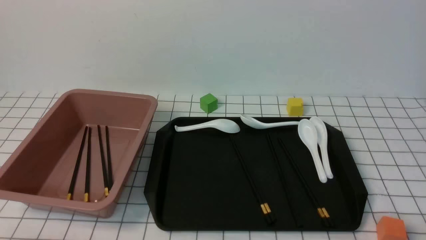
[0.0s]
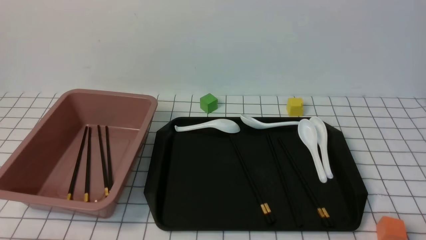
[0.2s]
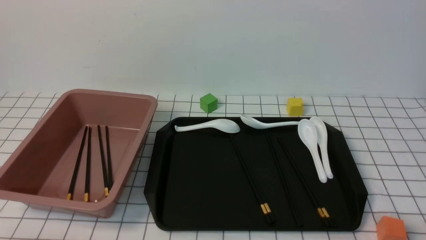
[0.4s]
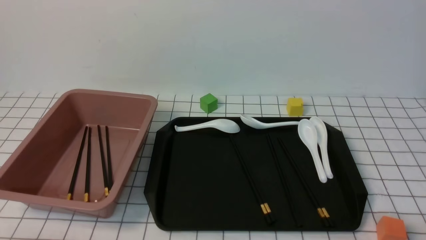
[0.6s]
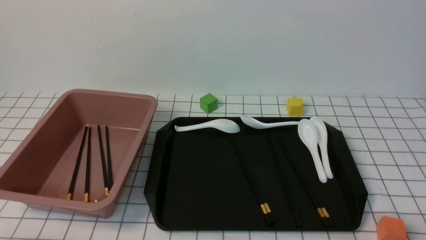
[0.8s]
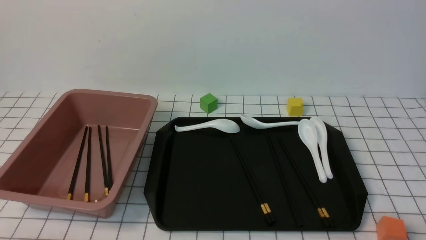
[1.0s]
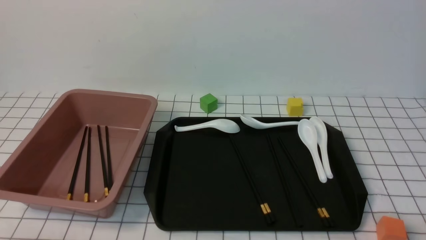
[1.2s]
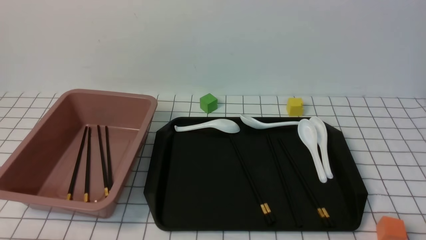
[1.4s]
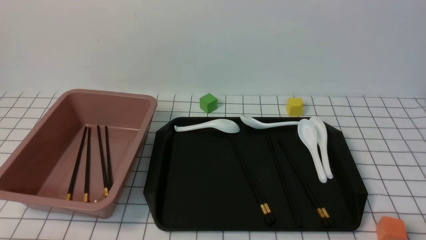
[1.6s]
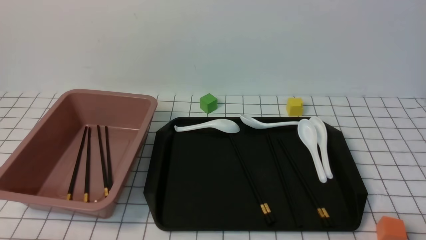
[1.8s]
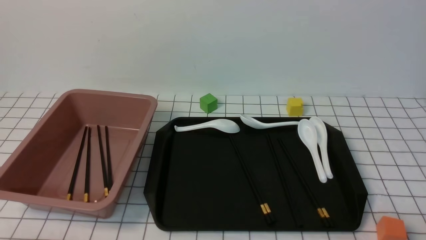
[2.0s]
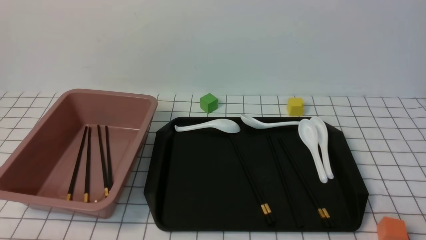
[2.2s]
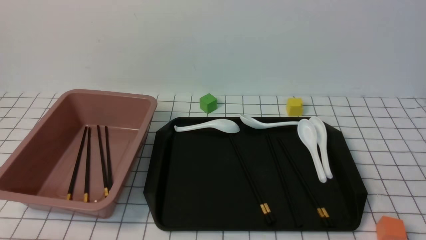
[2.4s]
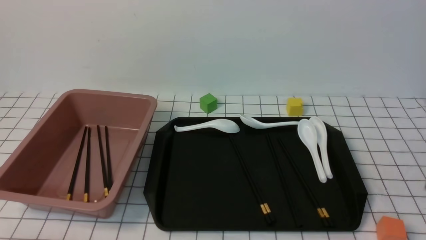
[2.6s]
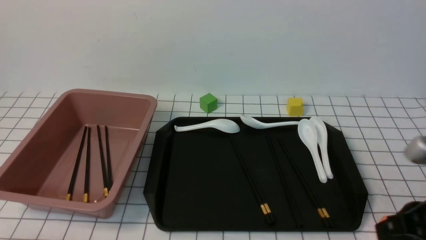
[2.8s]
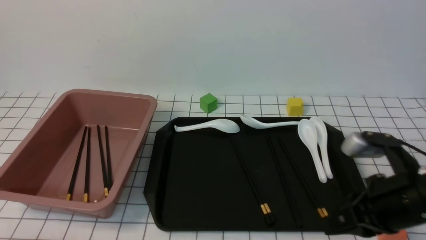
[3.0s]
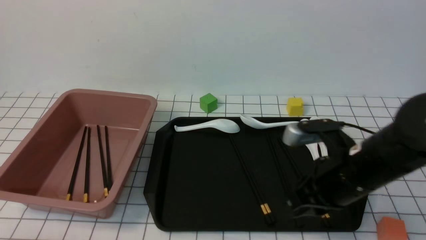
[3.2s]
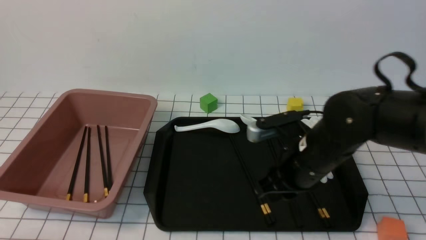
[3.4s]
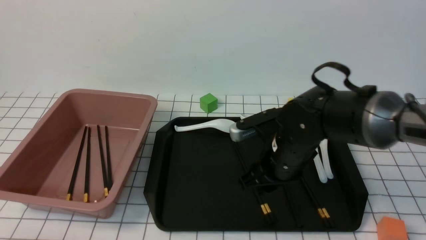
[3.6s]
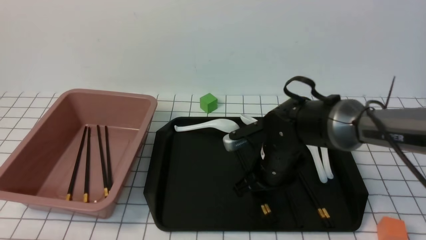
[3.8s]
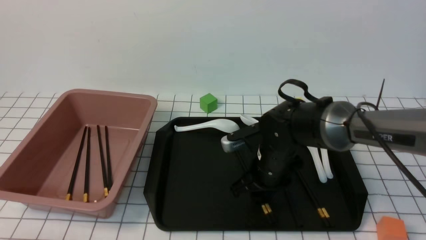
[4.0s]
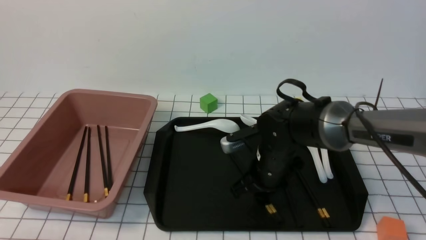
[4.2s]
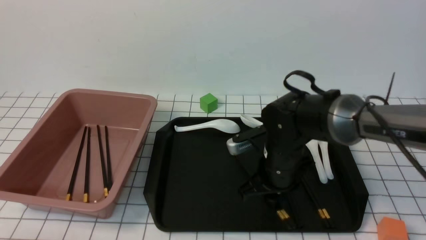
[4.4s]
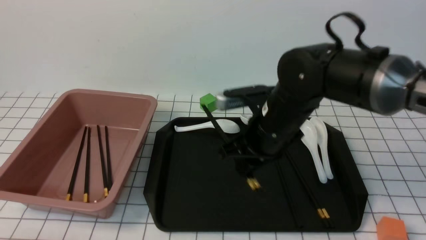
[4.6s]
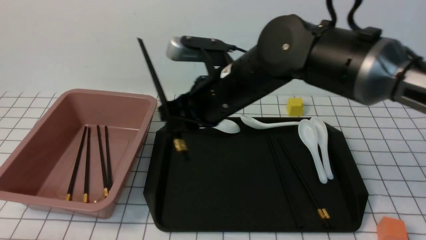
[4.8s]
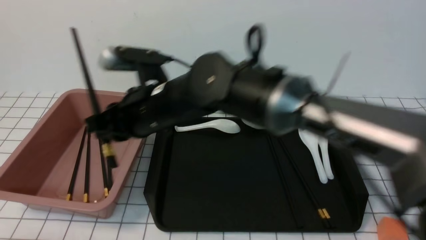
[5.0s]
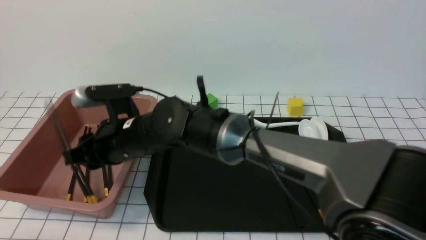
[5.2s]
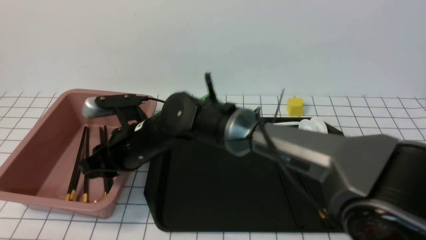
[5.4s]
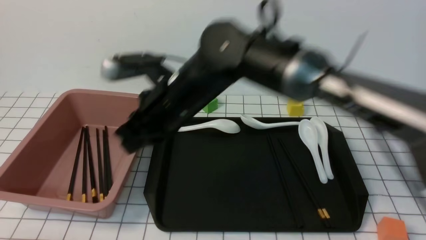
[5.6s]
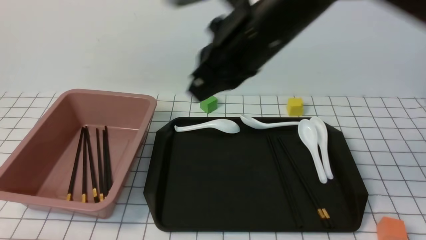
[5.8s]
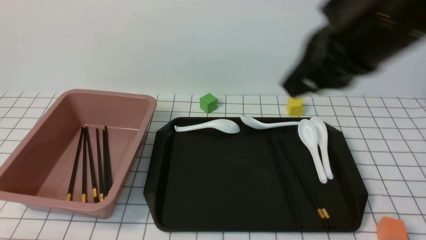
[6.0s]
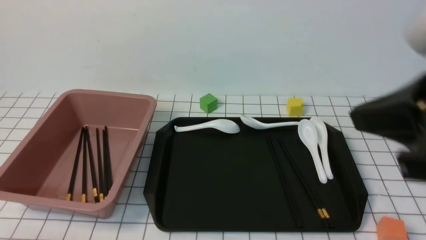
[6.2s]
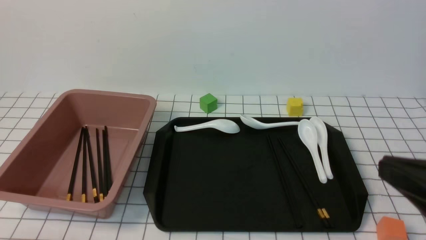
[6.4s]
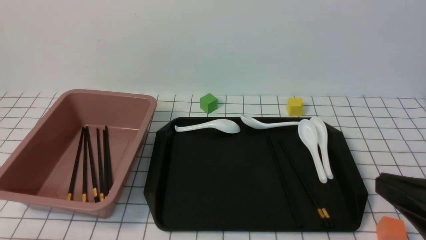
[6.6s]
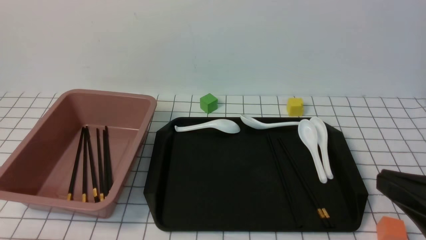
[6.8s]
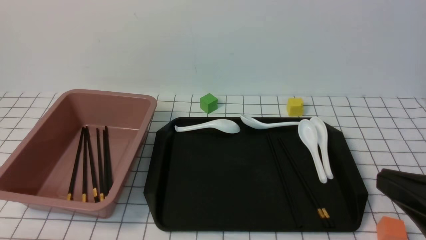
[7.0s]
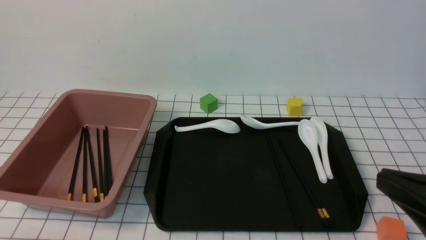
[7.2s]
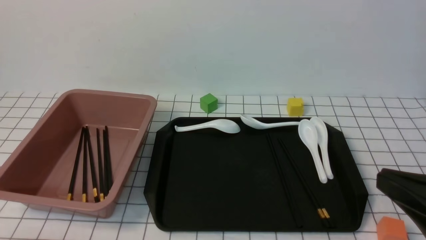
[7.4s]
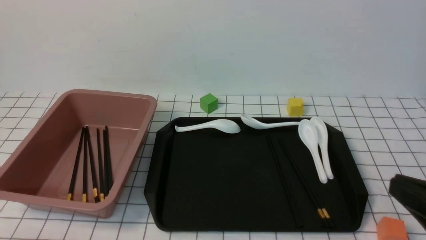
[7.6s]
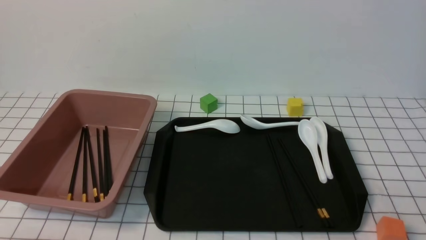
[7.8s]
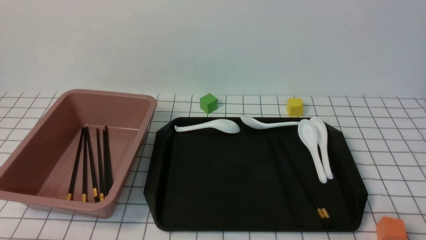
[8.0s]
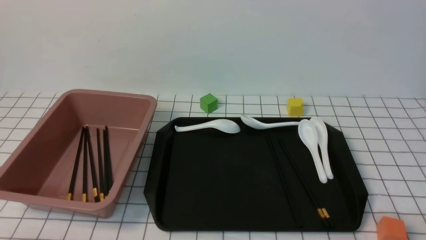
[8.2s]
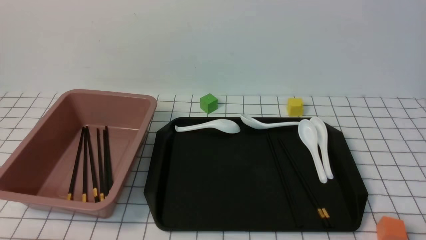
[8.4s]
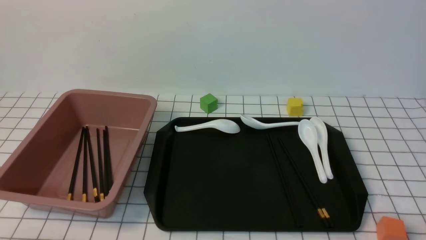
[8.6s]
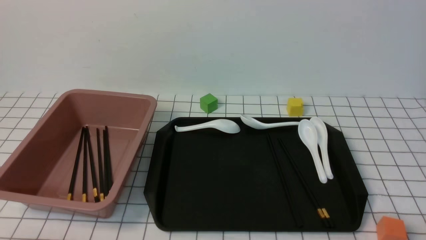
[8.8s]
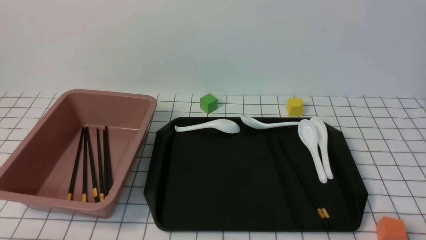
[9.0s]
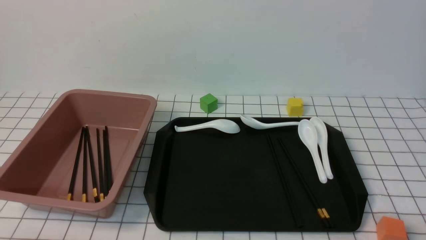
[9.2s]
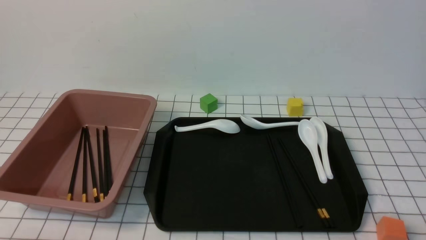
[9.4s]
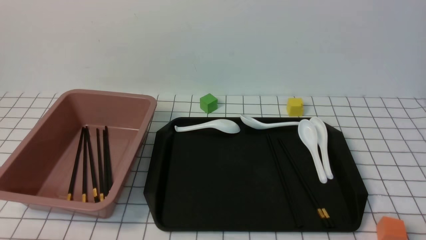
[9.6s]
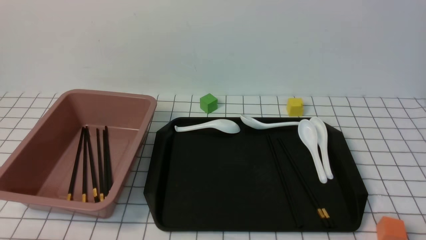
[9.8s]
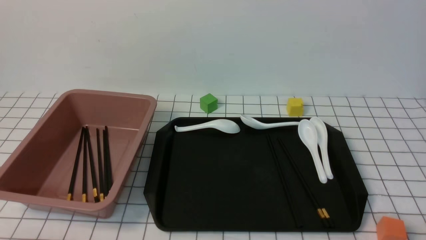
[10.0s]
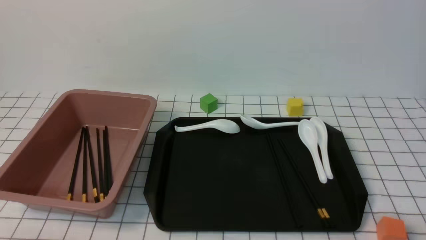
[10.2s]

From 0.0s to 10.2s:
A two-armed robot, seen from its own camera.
Step, from 0.0s to 4.4s: use the right arm to grab a pair of chopsticks.
Step, from 4.6s to 5.6s: use the right arm to put the chopsticks into the lunch box.
From 0.0s to 1.4s: The two grippers keep their place.
From 1.4s to 3.0s: The right gripper goes approximately 20 cm forward, to the left and upward, and closes its fingers.
From 3.0s to 4.4s: The right gripper shifts approximately 20 cm to the left, forward and downward, and opens and closes again.
From 4.4s to 5.8s: The right gripper goes up and down, some 20 cm each way, reversing 2 times, and closes up.
From 5.8s to 7.2s: The right gripper is displaced to the right, backward and downward by some 25 cm.
From 7.2s to 8.8s: The right gripper is displaced downward and to the right by approximately 15 cm.
From 8.8s to 10.2s: Both grippers stay put.

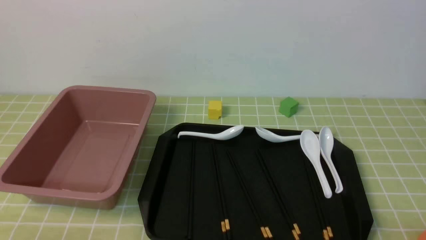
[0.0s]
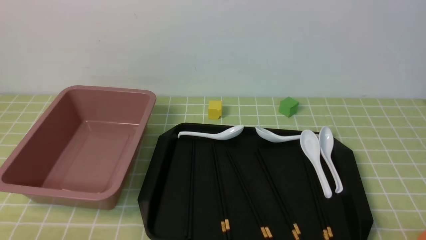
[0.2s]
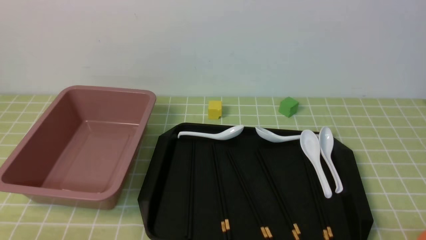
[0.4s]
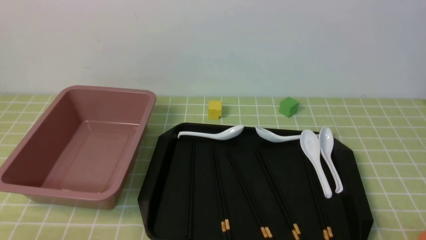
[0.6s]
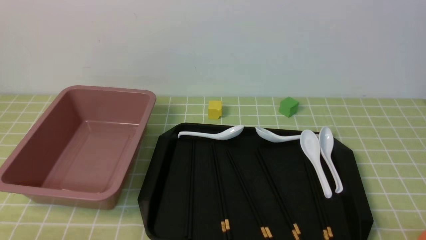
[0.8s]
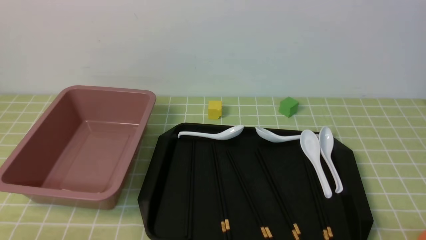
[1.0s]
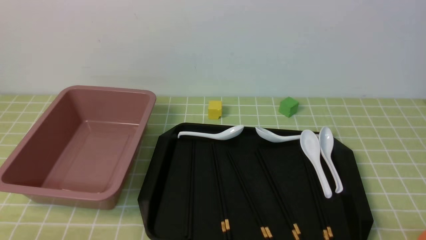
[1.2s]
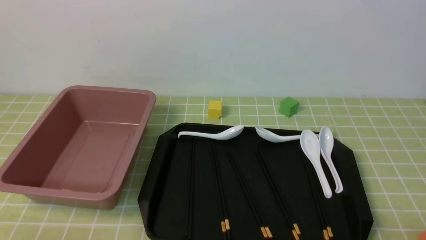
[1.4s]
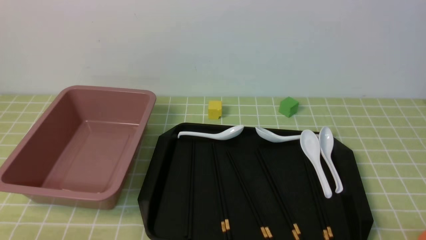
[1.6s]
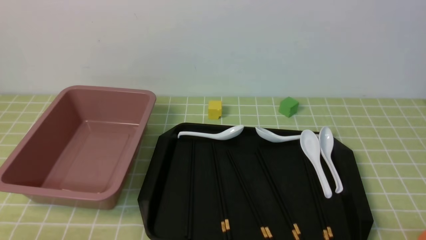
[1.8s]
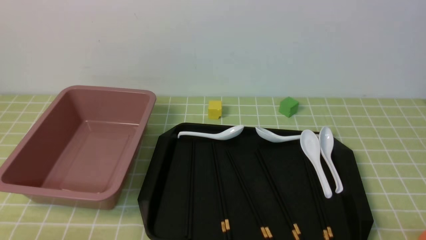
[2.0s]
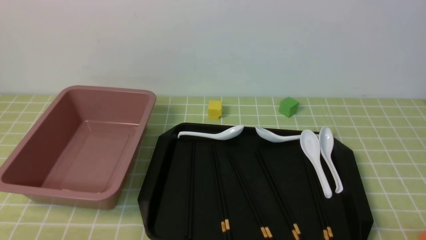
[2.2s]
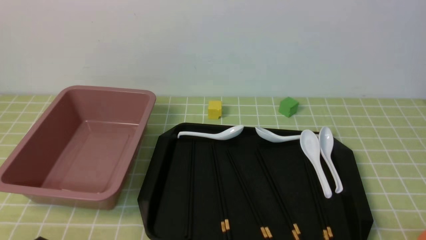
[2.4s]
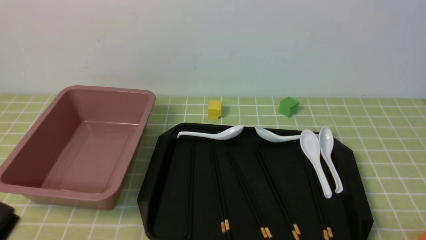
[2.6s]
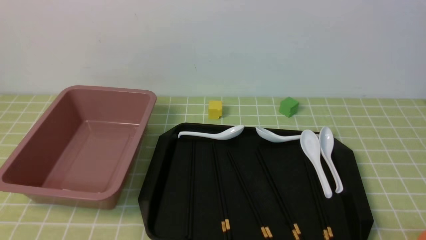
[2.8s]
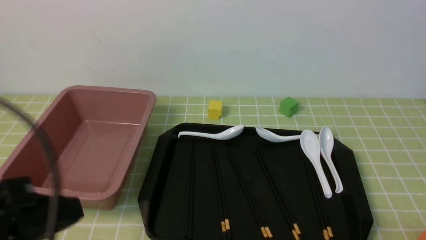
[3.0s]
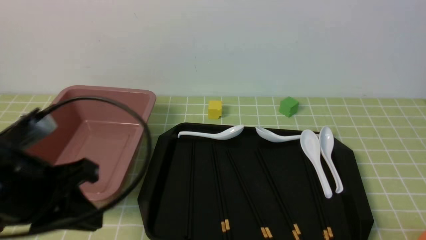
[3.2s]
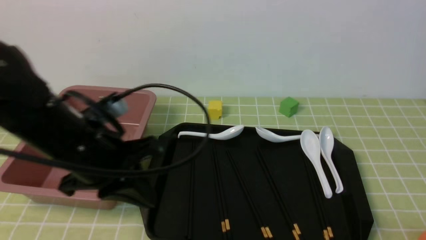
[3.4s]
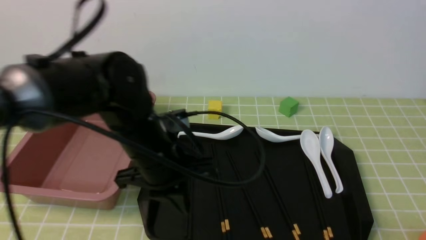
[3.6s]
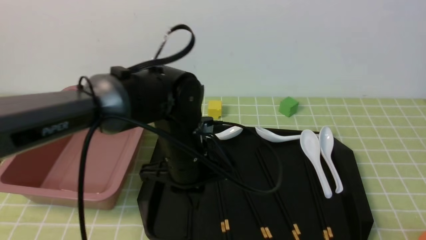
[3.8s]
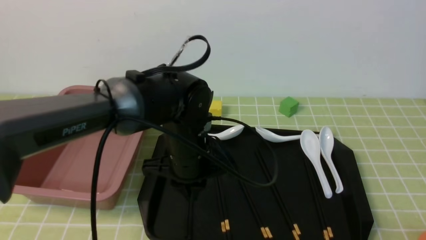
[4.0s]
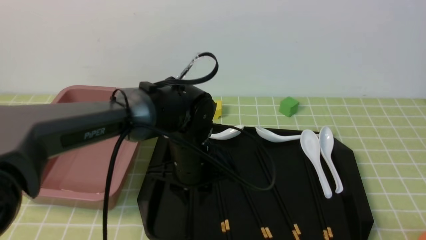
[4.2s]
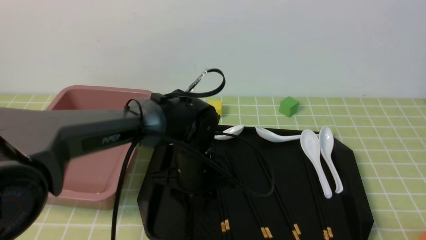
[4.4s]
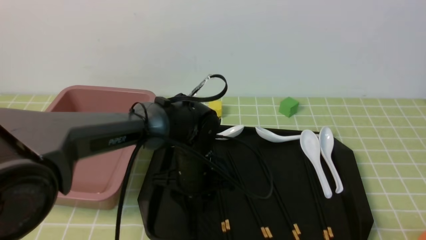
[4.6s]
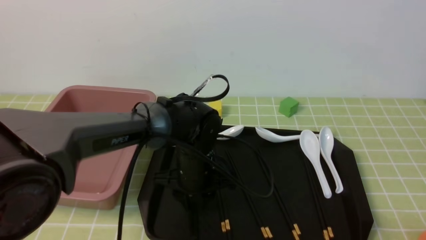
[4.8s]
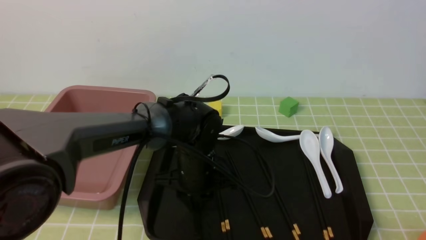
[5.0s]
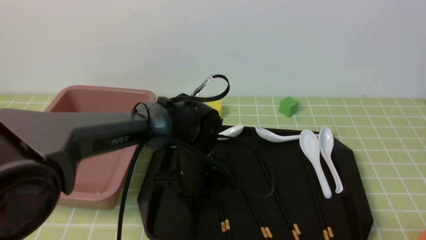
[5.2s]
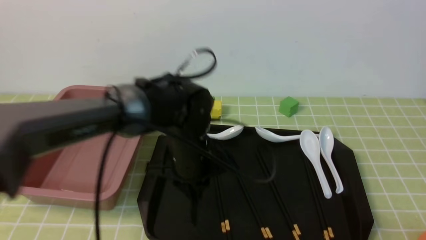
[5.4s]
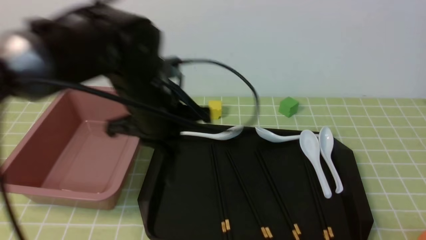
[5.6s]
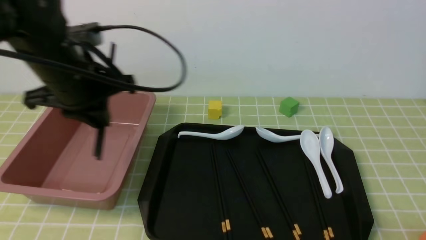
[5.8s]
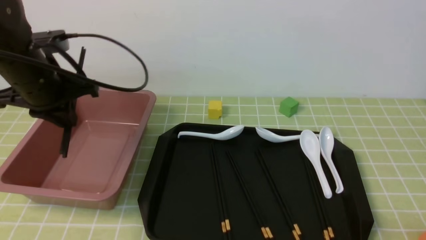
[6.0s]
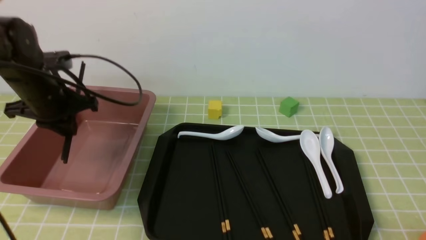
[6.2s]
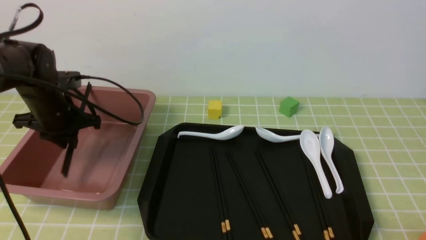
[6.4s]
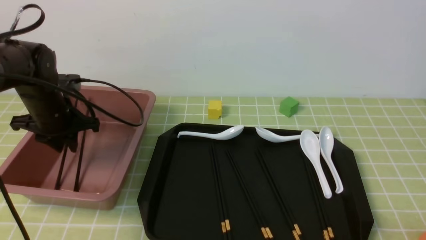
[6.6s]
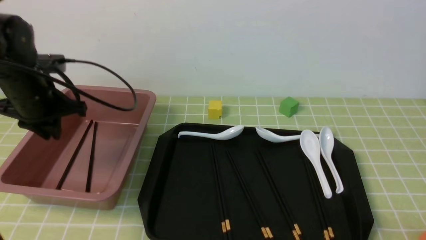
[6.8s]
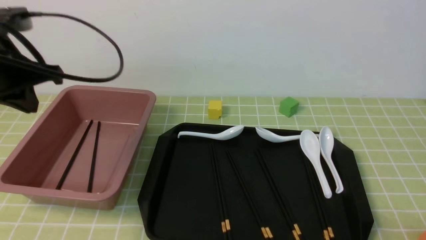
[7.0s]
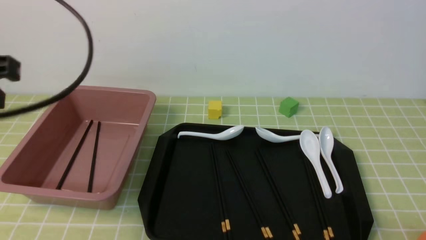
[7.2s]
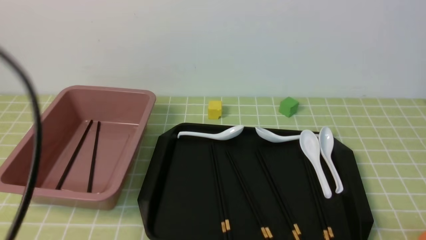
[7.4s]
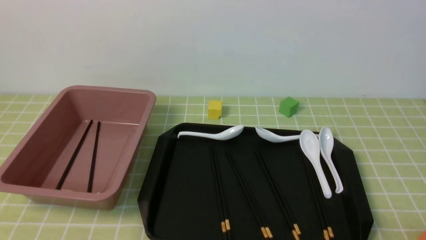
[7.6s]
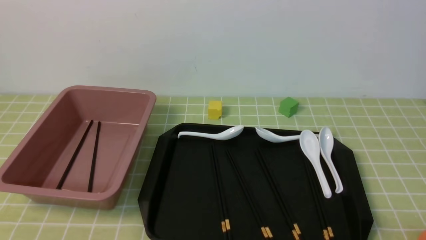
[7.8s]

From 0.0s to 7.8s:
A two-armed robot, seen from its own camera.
Step, from 0.0s to 5.4s: use the left arm to grab a pair of chopsticks.
Step, from 5.8s to 6.8s: use the left arm to put the chopsticks into the lunch box.
From 0.0s to 1.6s: The two grippers keep their place.
From 1.6s to 3.2s: The left gripper goes approximately 20 cm upward, forward and to the right, and closes up.
From 3.2s to 4.6s: The left gripper travels to the right, downward and forward by some 25 cm, and opens.
From 4.6s to 6.2s: The left gripper heads to the left and upward, covering approximately 25 cm, and closes up.
From 6.2s to 7.8s: The left gripper goes approximately 35 cm backward, and closes.
